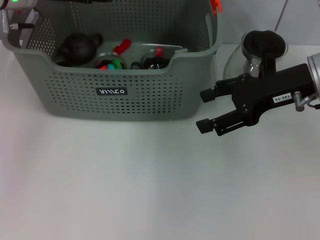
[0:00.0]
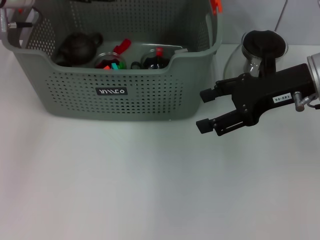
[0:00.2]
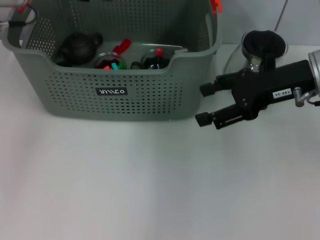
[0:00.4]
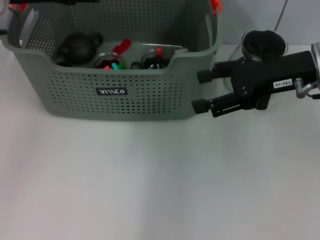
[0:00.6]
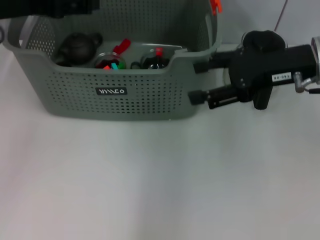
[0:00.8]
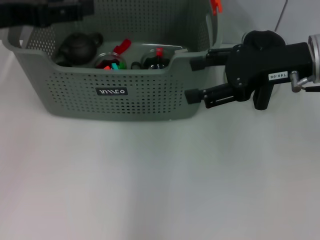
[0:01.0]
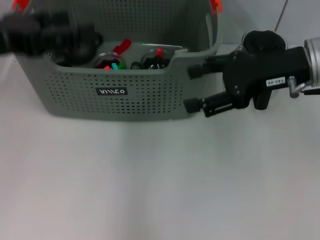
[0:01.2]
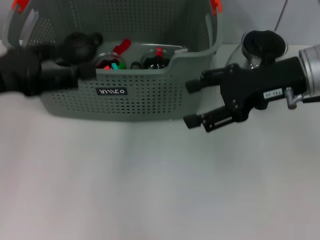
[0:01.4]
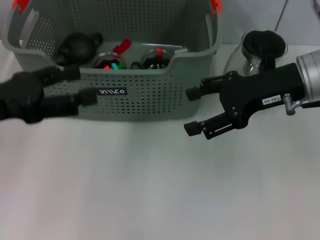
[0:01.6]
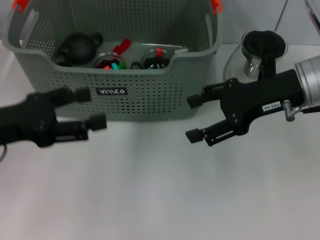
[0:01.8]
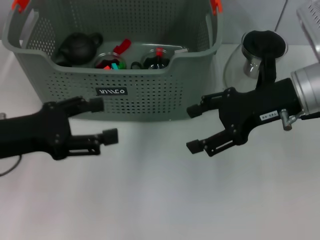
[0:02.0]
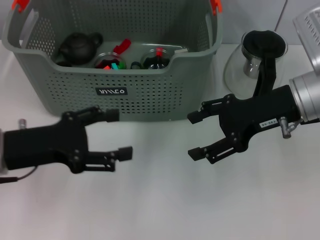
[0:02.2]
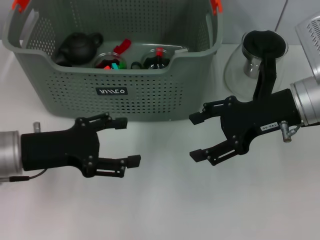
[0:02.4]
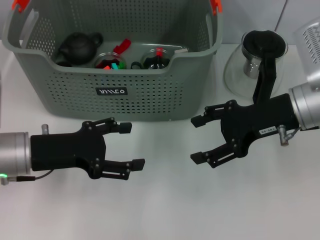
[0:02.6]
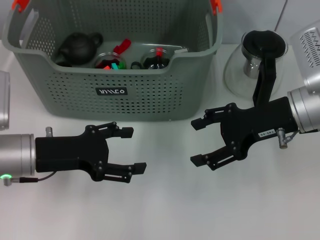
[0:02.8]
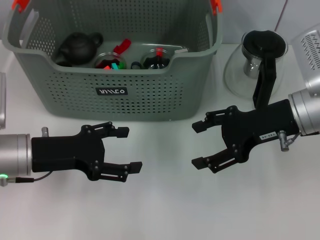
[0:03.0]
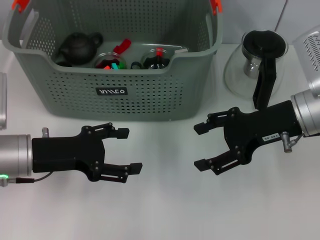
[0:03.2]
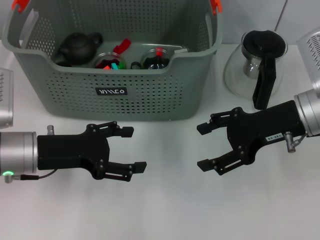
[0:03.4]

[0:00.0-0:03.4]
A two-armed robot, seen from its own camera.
Task of the whole recording: pick up the teacup on the table and place it into the storage bin, pick up the block on the table and place it into the storage bin.
0:00.0 to 0:01.6: The left gripper heads backward, covering approximately 20 cm, and opens.
0:01.6 to 0:03.4: The left gripper goes about 10 cm downward and to the right.
